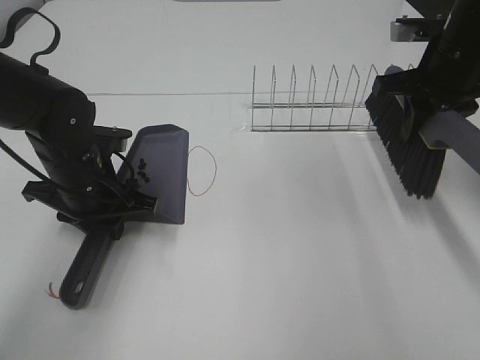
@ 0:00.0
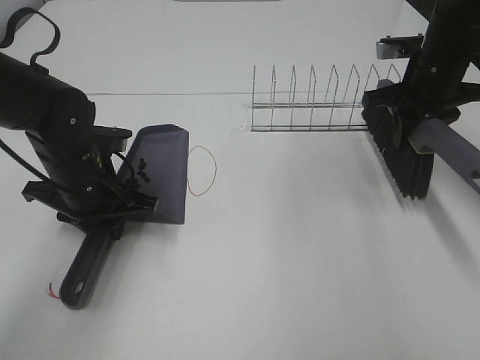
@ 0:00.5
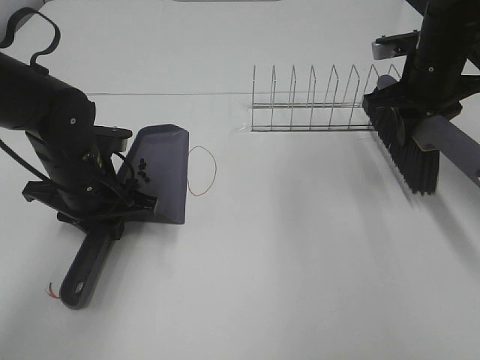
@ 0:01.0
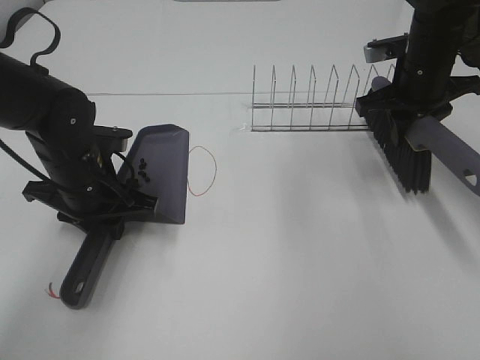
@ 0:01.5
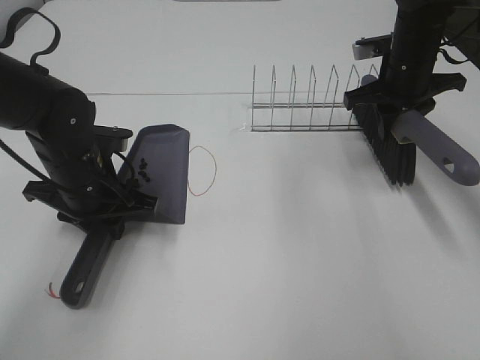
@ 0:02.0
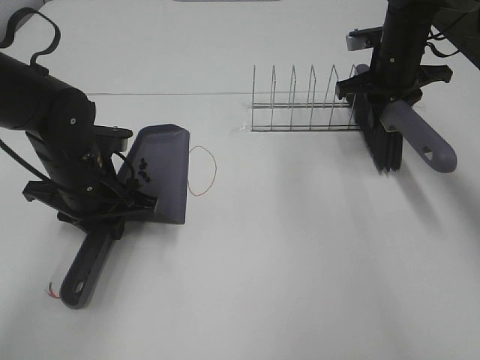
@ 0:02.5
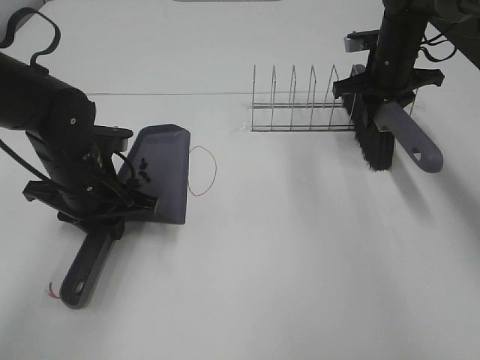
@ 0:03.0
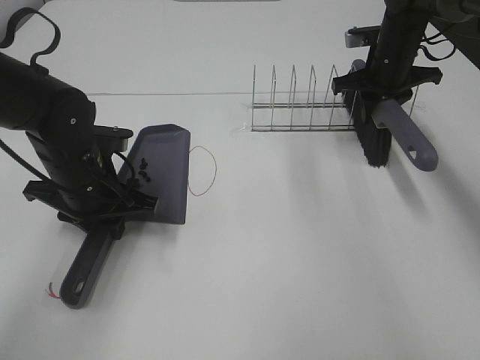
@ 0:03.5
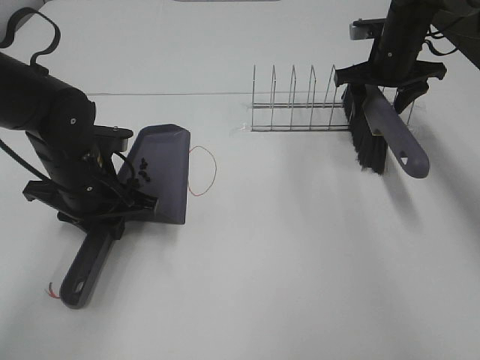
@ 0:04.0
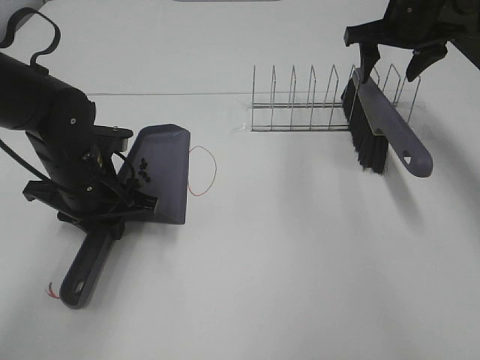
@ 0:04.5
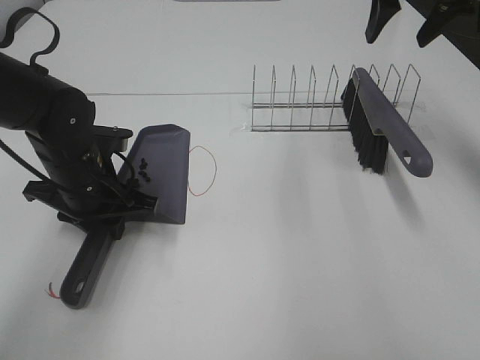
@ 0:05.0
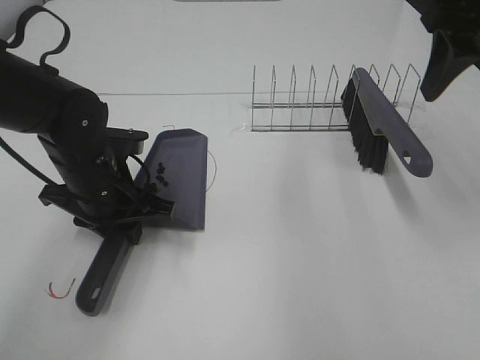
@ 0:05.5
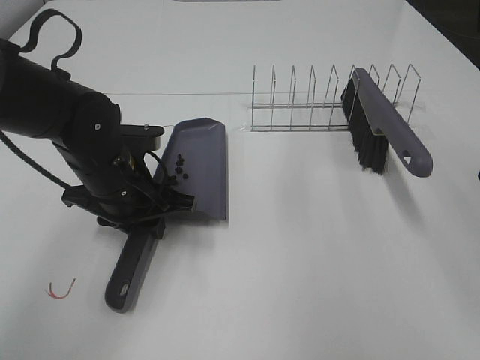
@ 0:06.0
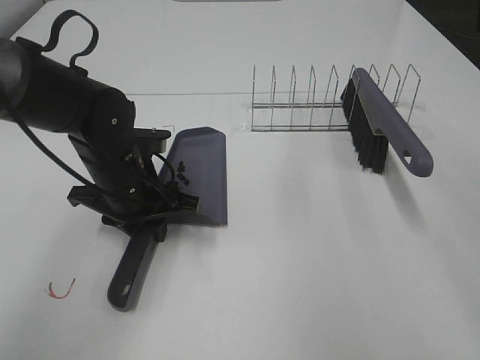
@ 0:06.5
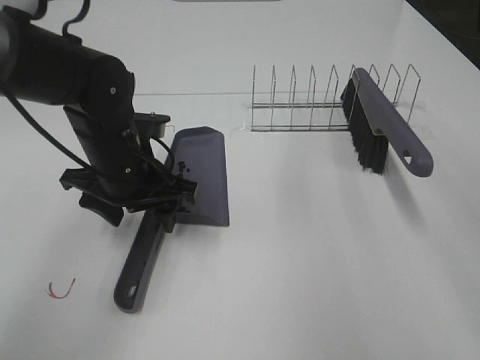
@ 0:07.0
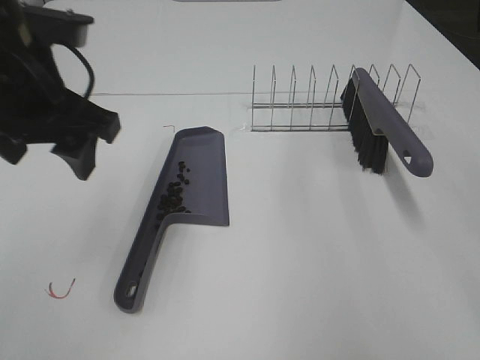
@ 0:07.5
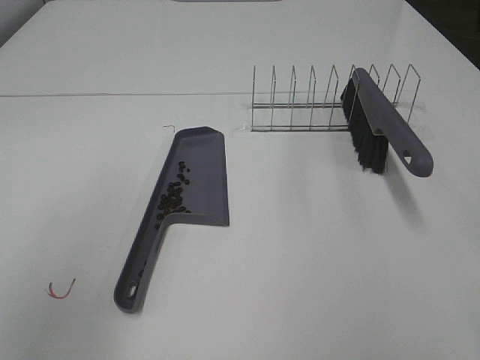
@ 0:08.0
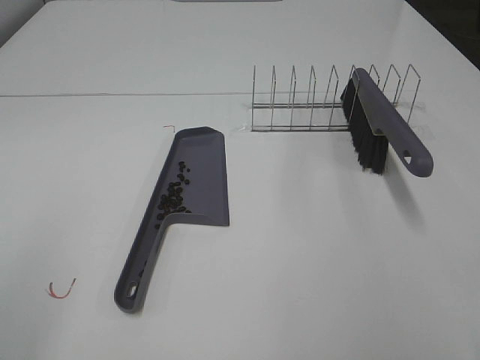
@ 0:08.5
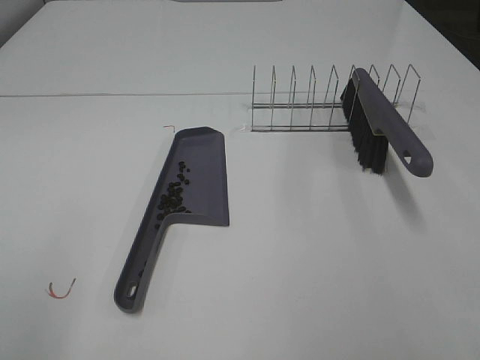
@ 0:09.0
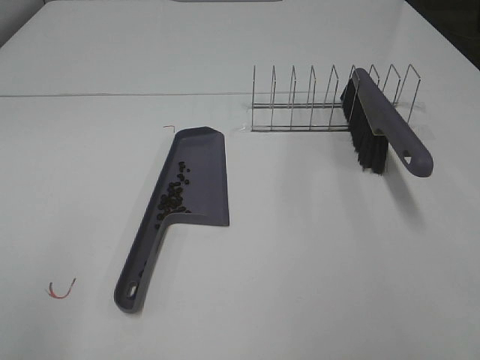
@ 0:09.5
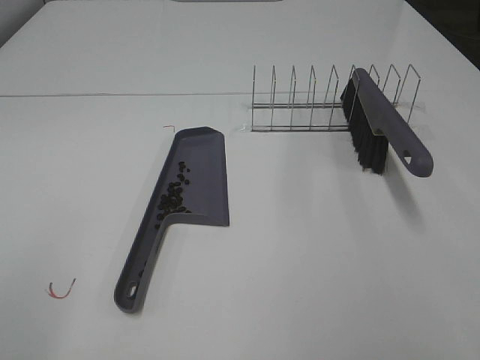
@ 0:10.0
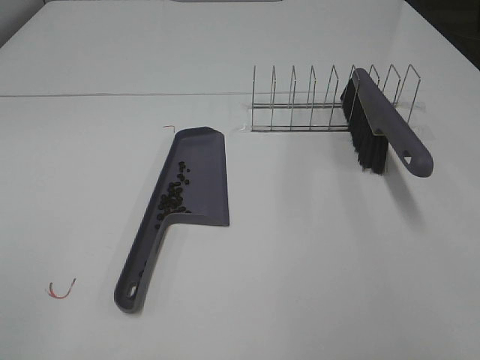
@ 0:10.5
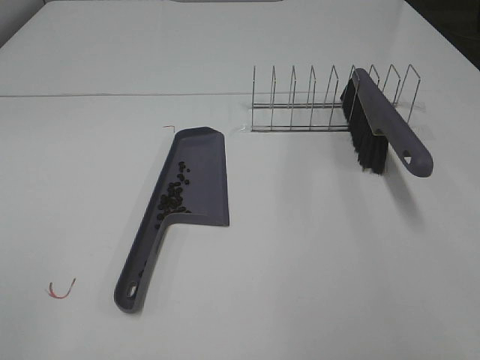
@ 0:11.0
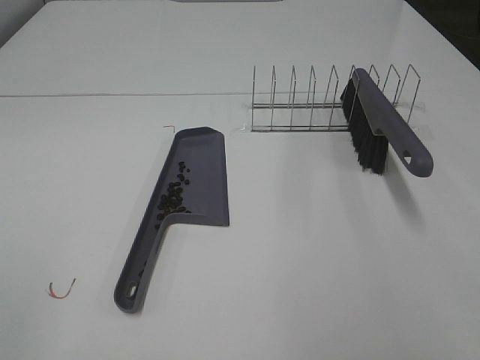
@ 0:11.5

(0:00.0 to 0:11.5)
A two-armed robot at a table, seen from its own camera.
Task of the whole recording: Sweep Coffee Bean.
Step, 0:00.0 - 0:04.0: Right hand:place the broom on the rack.
Step, 0:04.5 - 0:06.5: Left hand:place the dustpan on the table.
0:00.0 - 0:02.0: The right gripper moves forward, roughly 5 cm.
0:02.0 - 0:04.0: The right gripper moves forward, about 5 cm, and opens up.
0:04.0 - 0:06.0: The right gripper moves backward and upward, approximately 35 cm.
0:06.0 - 0:07.5: The left gripper moves upward, about 15 cm, and opens up. The right gripper travels backward by approximately 5 cm.
0:07.5 - 0:09.5: The left gripper moves backward and to the left, roughly 25 cm. Meanwhile the right gripper shifts approximately 10 cm backward and downward.
